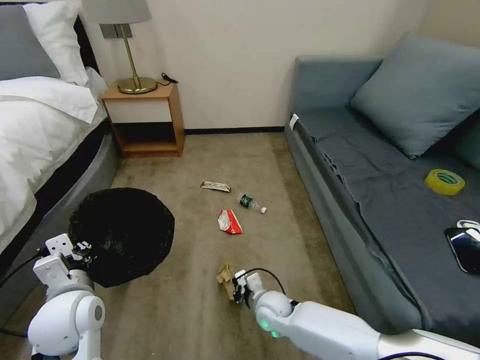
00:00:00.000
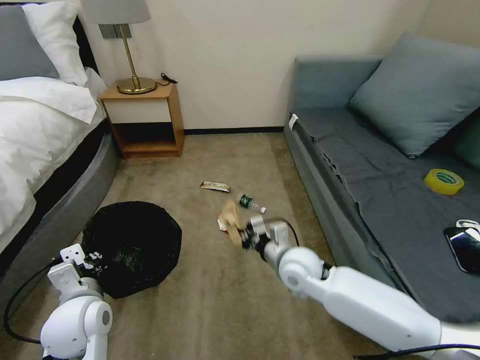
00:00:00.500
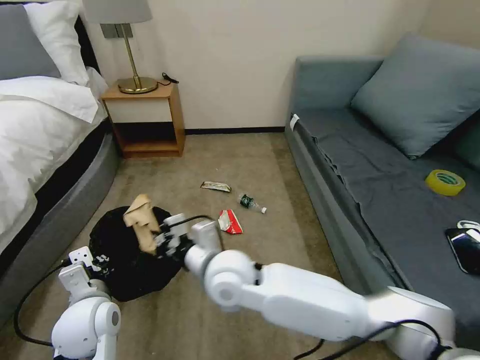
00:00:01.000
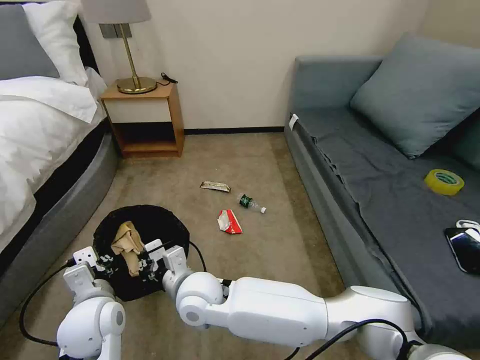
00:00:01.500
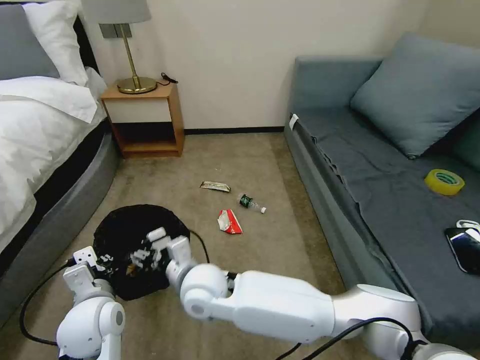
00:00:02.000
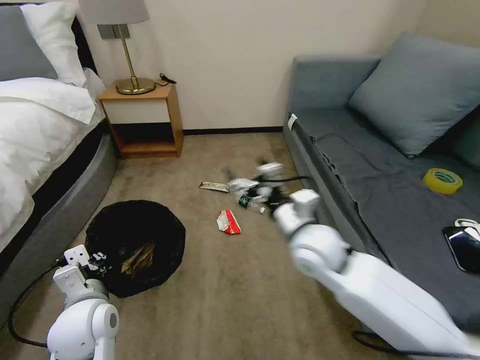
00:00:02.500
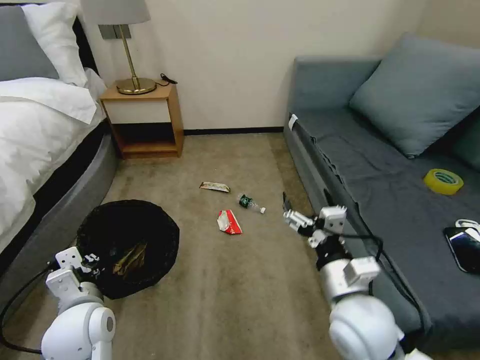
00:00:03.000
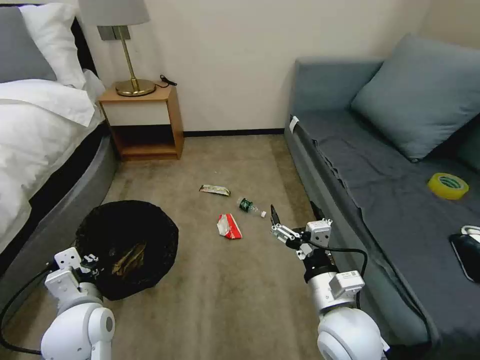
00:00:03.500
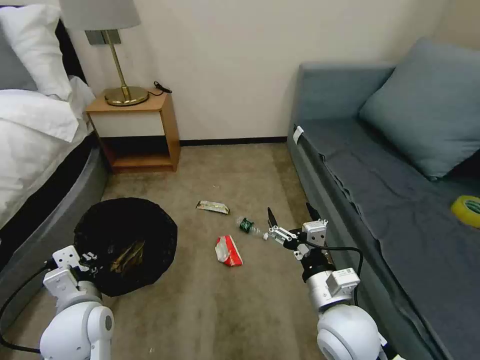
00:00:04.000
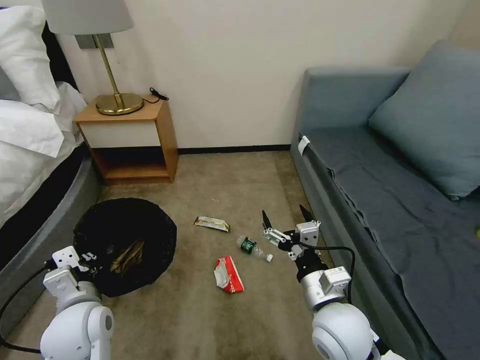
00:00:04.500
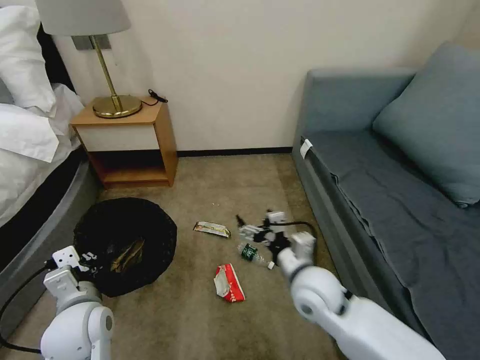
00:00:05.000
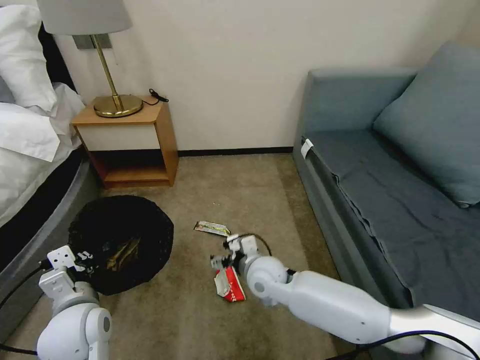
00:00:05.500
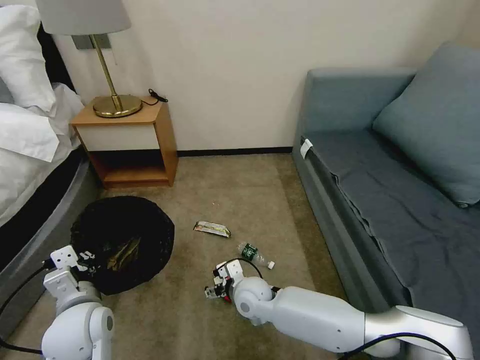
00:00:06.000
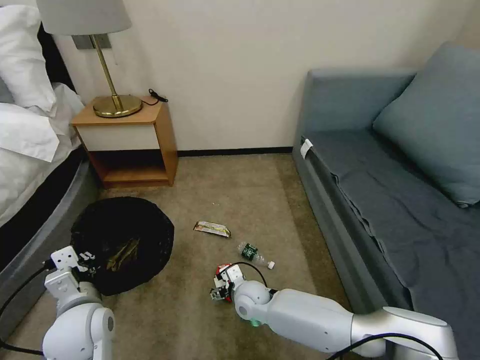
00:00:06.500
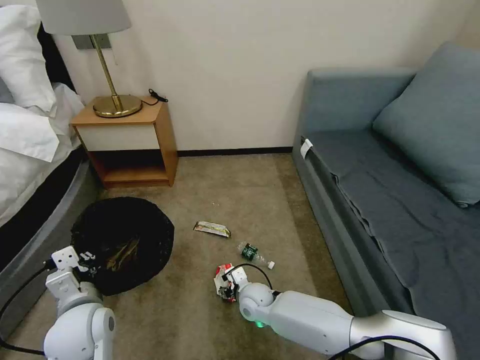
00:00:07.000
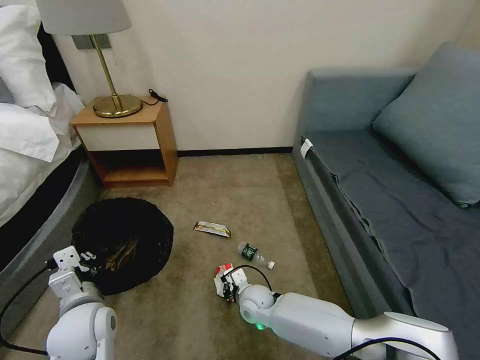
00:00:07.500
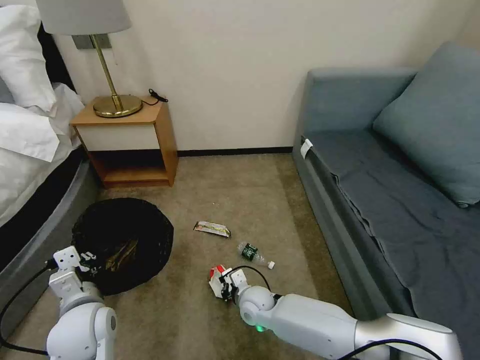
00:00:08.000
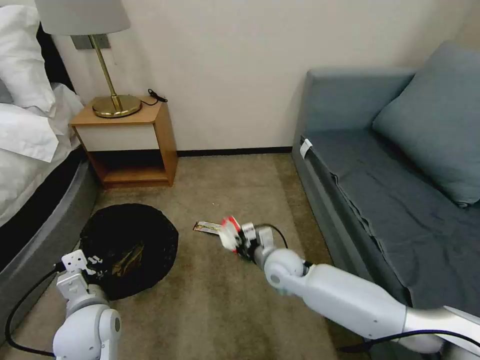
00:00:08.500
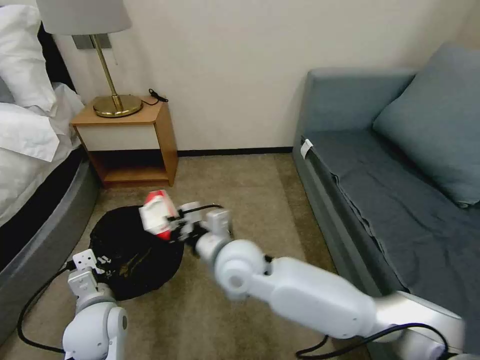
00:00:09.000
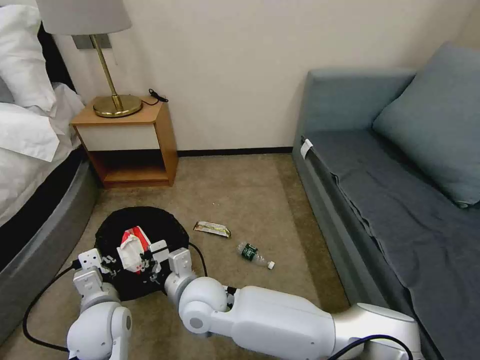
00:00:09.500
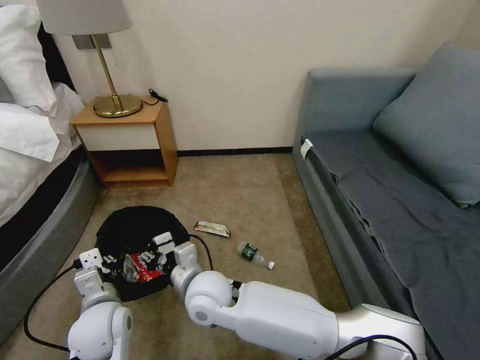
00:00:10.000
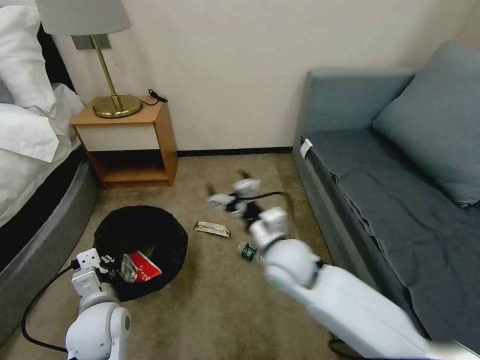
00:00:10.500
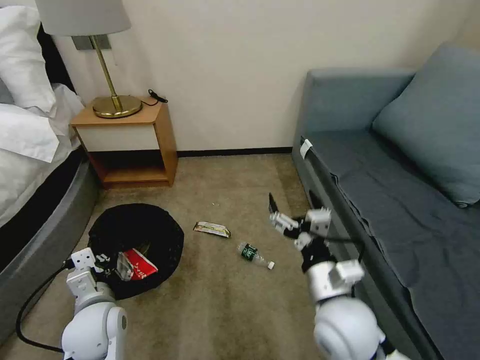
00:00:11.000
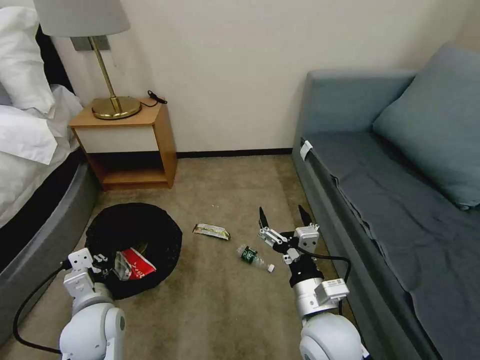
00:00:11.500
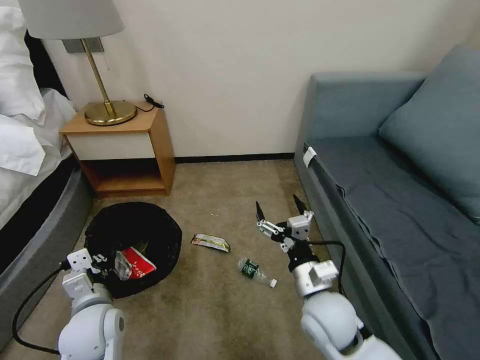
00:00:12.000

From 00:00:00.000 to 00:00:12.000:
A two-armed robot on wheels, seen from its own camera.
Task of the whole recording: Pick up the trash bin, then pick up the garbage on the floor and place it into the trash bin.
From 00:00:00.000 to 00:00:02.000: The right gripper is displaced upward and to the left by some 25 cm, and opens.
From 00:00:02.000 to 00:00:04.000: The right gripper goes approximately 25 cm to the right, and opens.
From 00:00:04.000 to 00:00:06.000: The right gripper heads to the left, downward and forward, covering some 25 cm.
From 00:00:06.000 to 00:00:08.000: The right gripper goes approximately 5 cm downward, and closes.
From 00:00:08.000 to 00:00:10.000: The right gripper goes roughly 20 cm upward and to the left, and opens up.
From 00:00:10.000 to 00:00:12.000: The right gripper heads to the right, covering approximately 25 cm, and opens up.

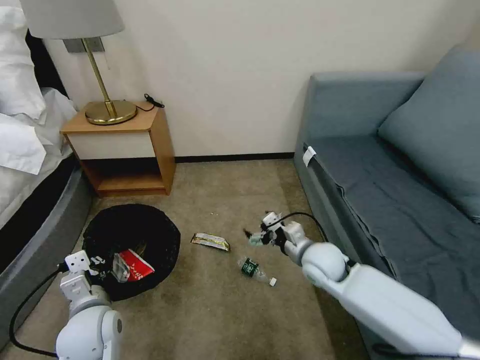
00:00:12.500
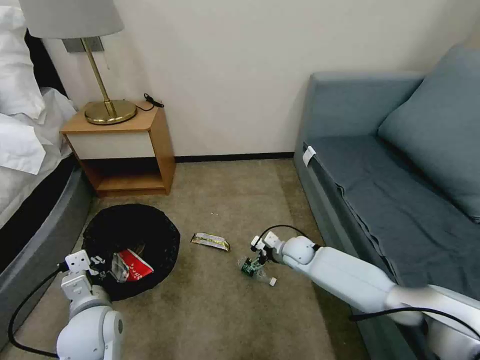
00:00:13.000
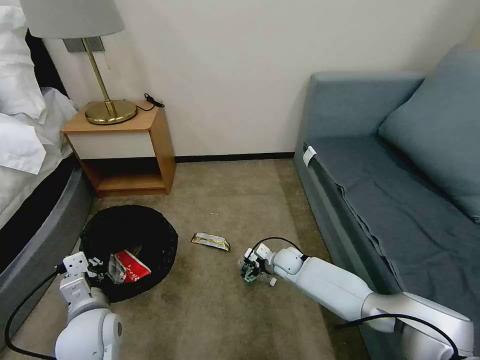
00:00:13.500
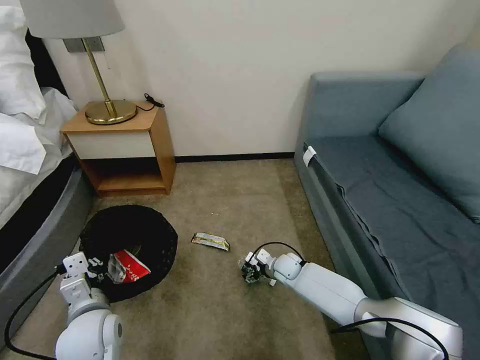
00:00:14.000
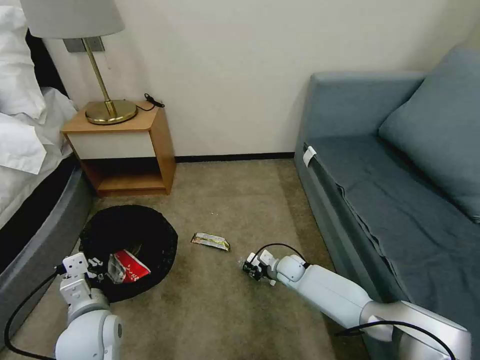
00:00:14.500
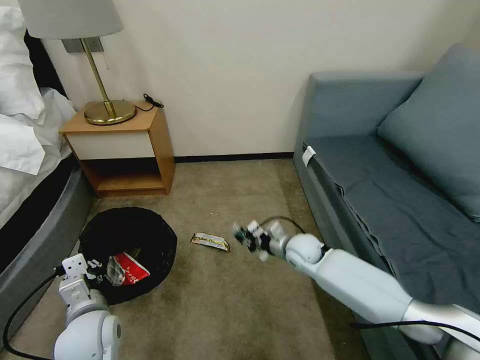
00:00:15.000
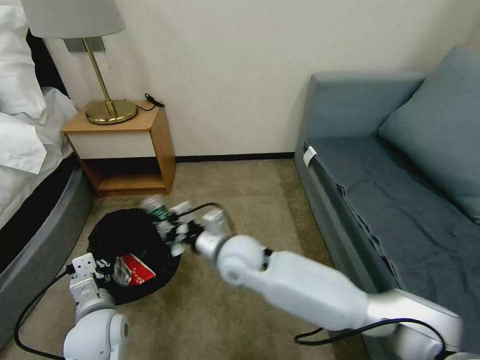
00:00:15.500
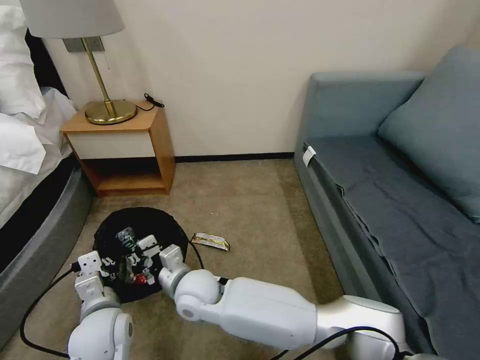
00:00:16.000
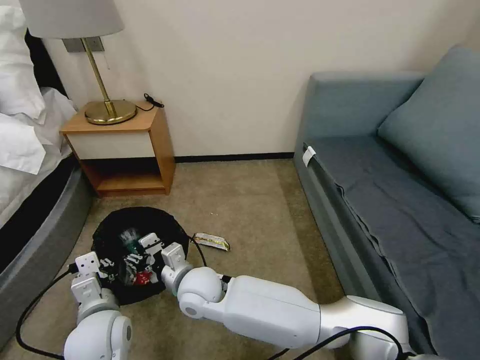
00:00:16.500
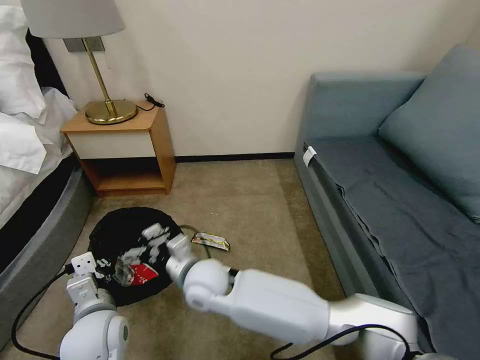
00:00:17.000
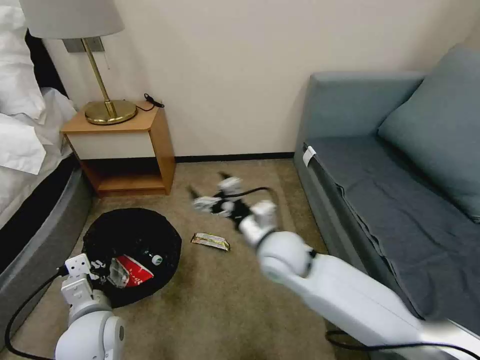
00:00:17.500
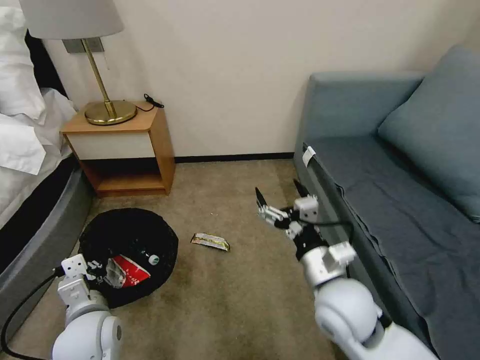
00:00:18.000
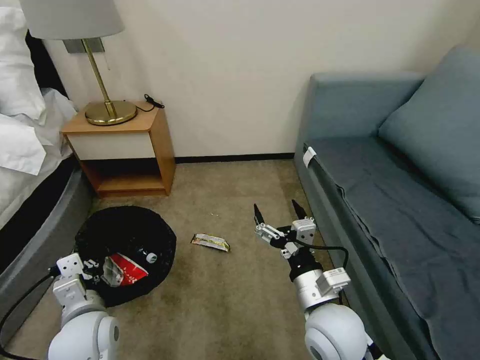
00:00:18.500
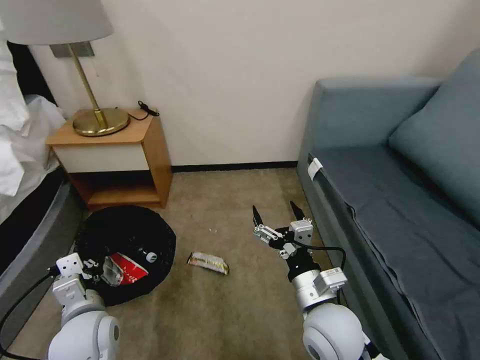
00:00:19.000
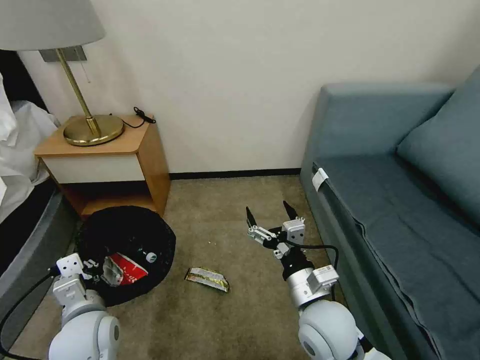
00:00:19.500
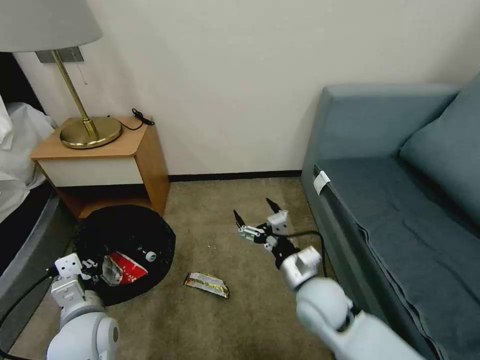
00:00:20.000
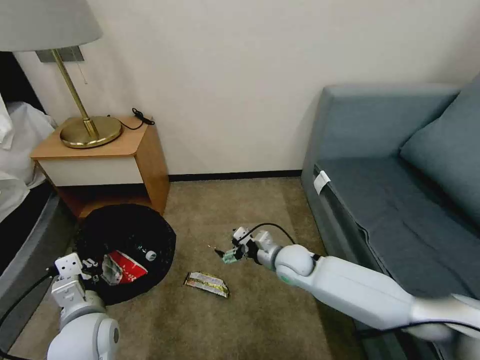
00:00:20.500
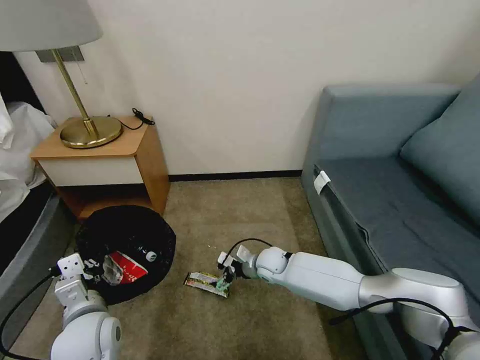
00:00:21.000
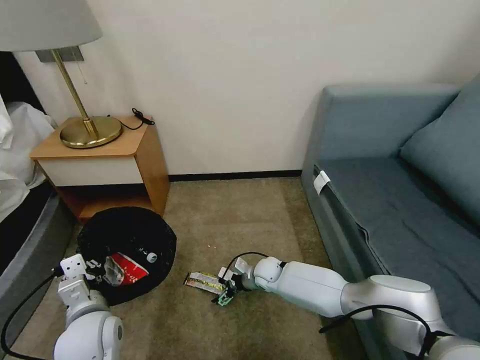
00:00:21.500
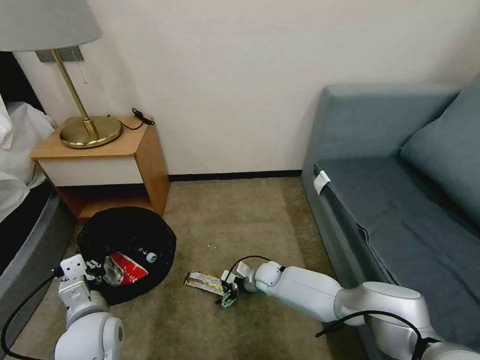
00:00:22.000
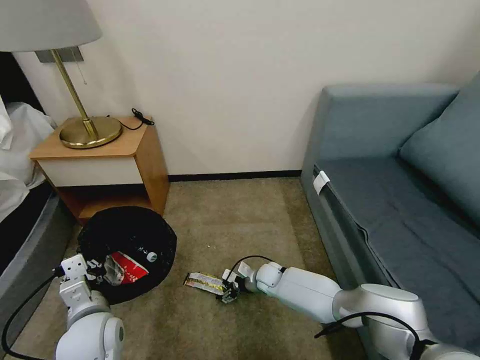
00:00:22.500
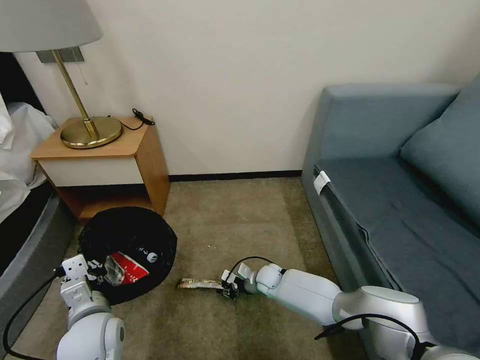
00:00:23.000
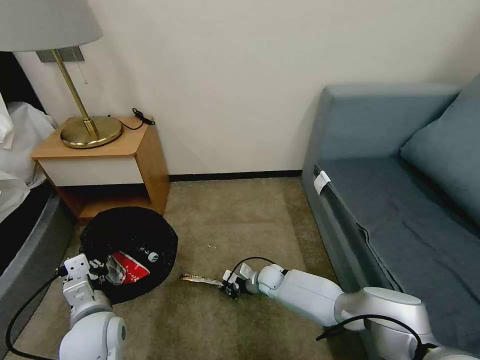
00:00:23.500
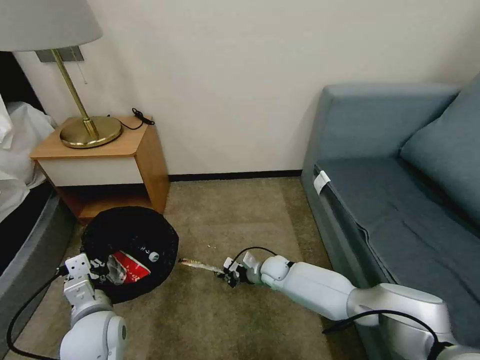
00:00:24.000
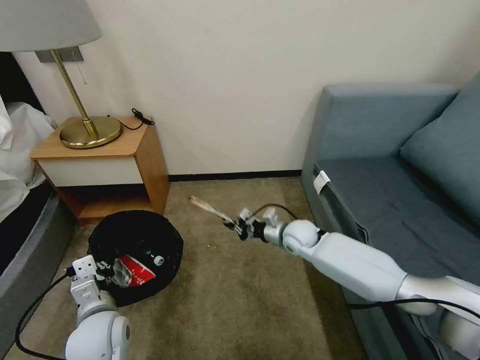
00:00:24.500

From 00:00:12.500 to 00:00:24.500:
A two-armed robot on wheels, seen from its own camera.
Task of the whole recording: Pick up the trash bin, then pick up the garbage on the floor and place it into the trash bin.
From 00:00:12.500 to 00:00:14.500: The right gripper goes about 20 cm downward, and closes.
From 00:00:14.500 to 00:00:16.500: The right gripper travels to the left, upward and backward by some 35 cm.
From 00:00:16.500 to 00:00:18.500: The right gripper goes approximately 25 cm to the right, and opens its fingers.
From 00:00:18.500 to 00:00:20.500: The right gripper heads forward and downward, covering some 20 cm.
From 00:00:20.500 to 00:00:22.500: The right gripper goes roughly 15 cm downward.
From 00:00:22.500 to 00:00:24.500: The right gripper is displaced upward and to the right by approximately 15 cm, and closes its fingers.

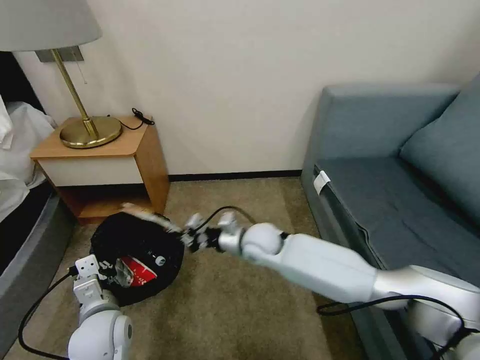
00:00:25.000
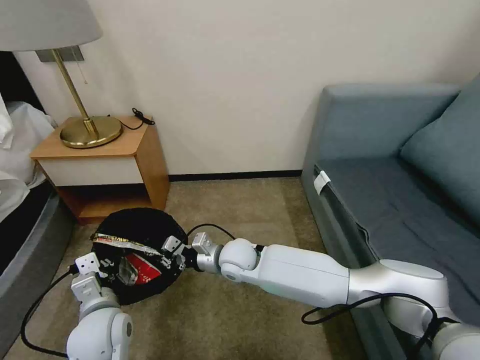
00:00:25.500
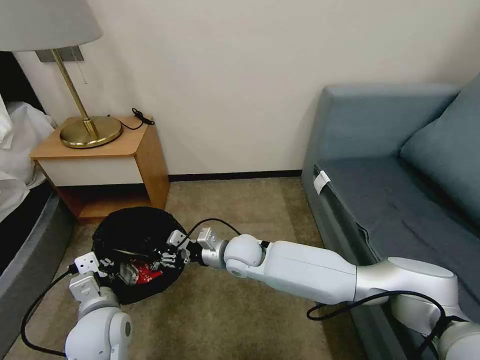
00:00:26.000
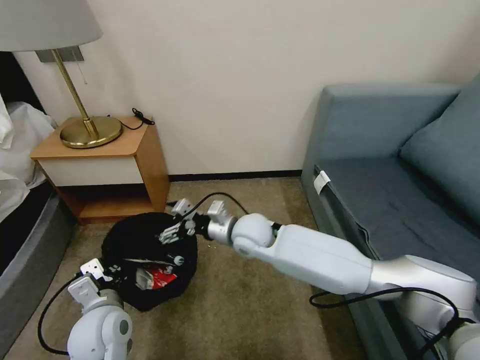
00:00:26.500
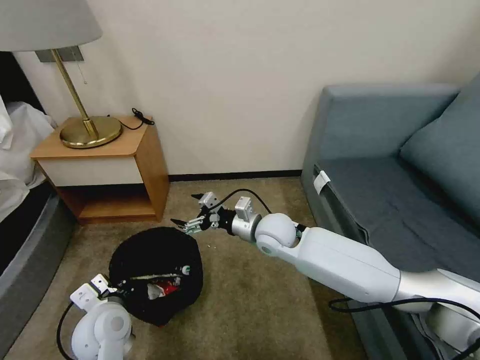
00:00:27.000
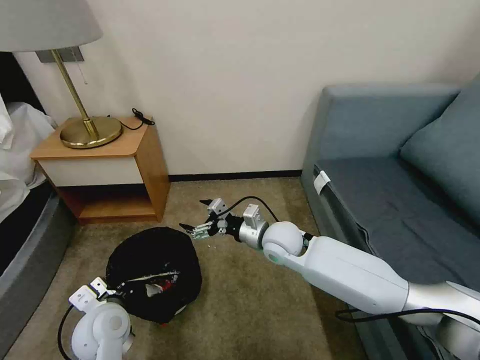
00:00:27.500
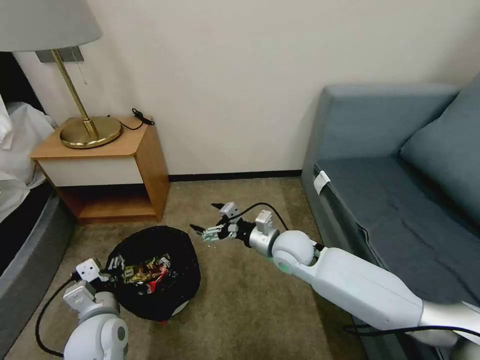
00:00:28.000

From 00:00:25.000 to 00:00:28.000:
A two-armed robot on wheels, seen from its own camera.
Task of the whole recording: Pick up the trash bin, then pick up the garbage on the floor and place it into the trash bin.
From 00:00:25.000 to 00:00:26.500: The right gripper moves approximately 5 cm, and opens its fingers.
From 00:00:26.500 to 00:00:28.000: The right gripper heads to the right, covering approximately 10 cm, while the left gripper opens up.
